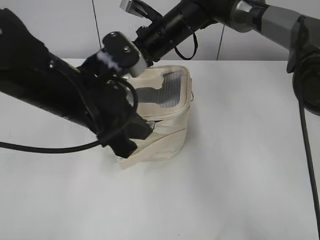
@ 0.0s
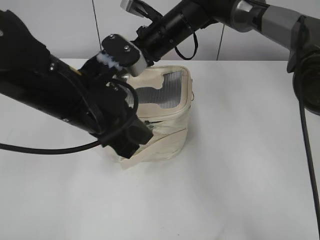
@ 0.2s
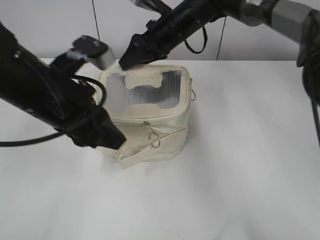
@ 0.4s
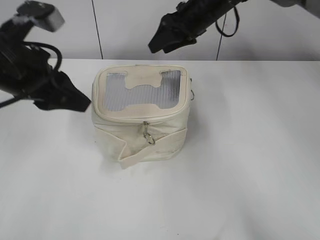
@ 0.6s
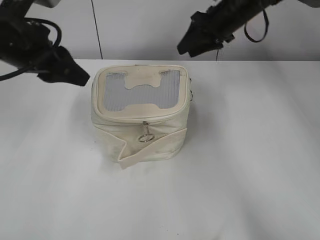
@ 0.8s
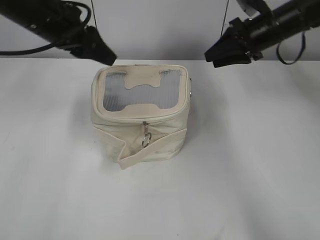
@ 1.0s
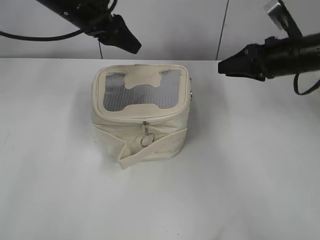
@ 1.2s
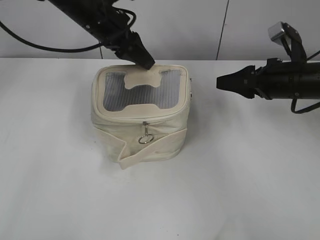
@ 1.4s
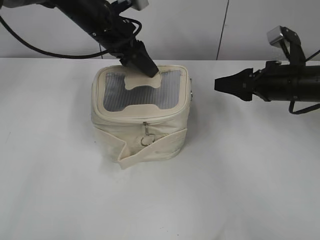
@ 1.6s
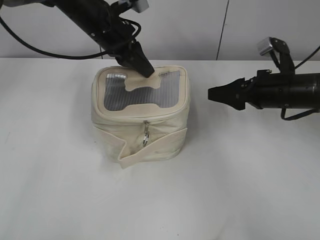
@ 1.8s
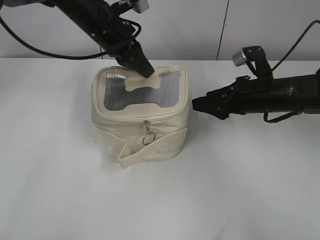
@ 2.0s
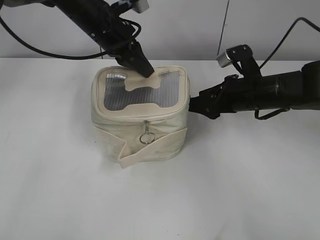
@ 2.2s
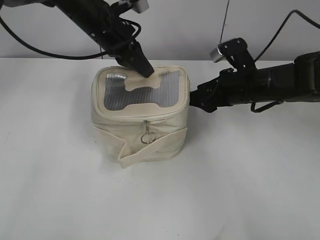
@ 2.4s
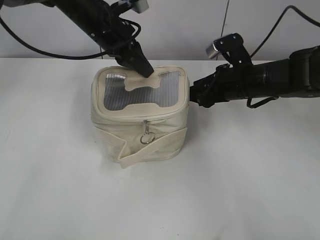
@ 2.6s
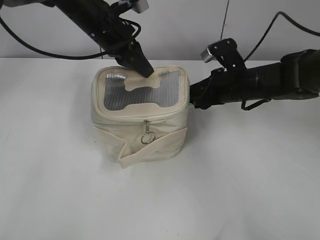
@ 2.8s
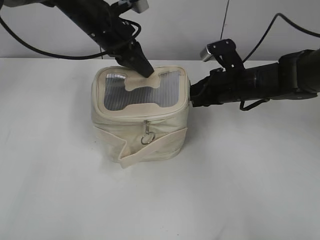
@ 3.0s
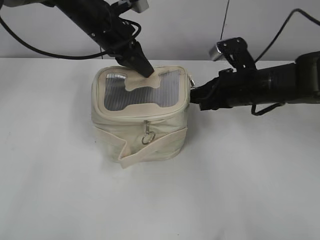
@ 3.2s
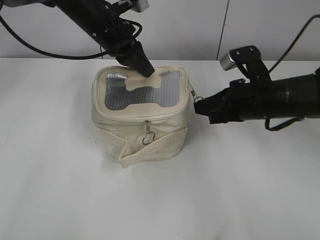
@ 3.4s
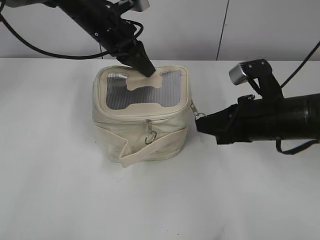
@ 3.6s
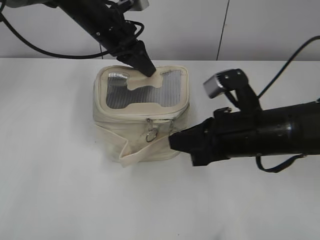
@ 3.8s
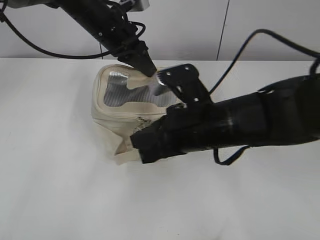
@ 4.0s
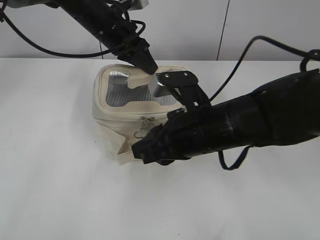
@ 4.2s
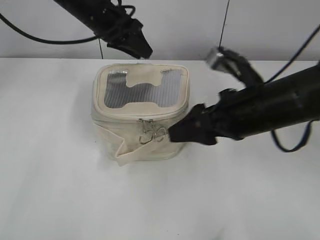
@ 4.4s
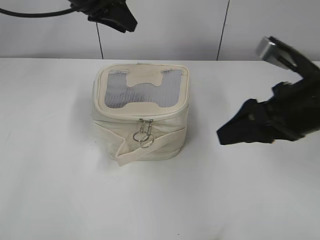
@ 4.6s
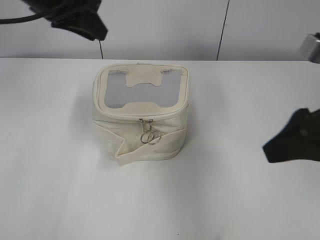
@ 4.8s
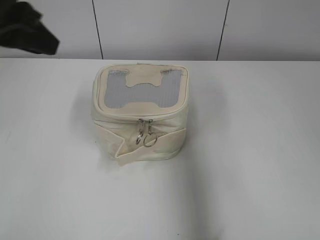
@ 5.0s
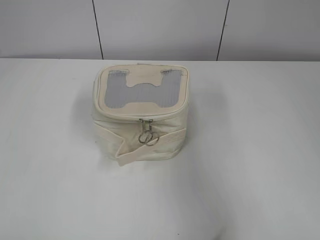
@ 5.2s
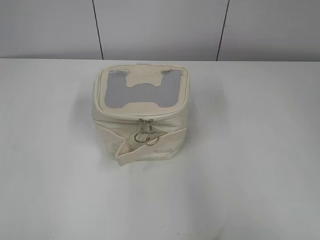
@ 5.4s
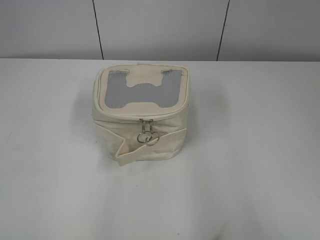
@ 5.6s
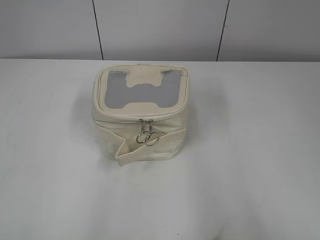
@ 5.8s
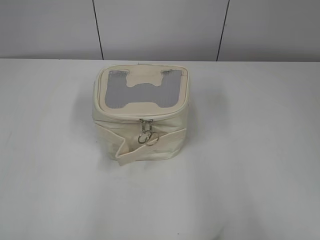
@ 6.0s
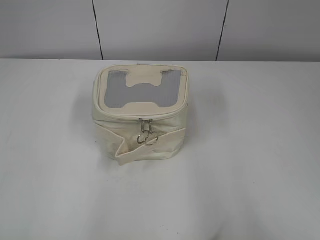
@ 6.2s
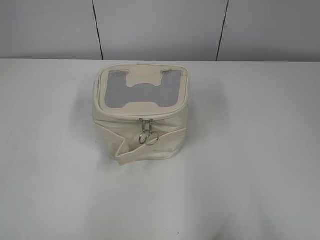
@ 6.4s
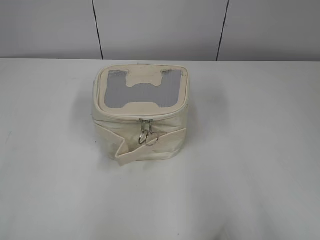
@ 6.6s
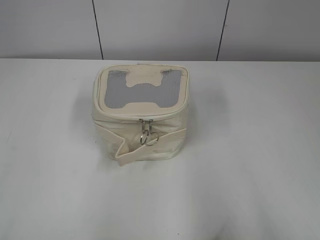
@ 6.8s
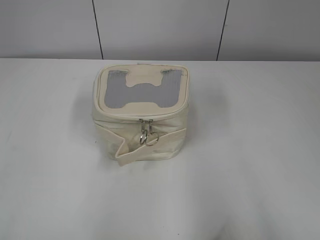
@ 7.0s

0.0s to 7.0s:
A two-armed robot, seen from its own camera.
Step, 0.6s to 4.2s: Zip up the bag with your right hand.
0.0s to 1.4s: The right gripper moves to the right and backward, approximately 25 cm, and opens its fingers; the left gripper goes roughly 20 cm forward, and opens its fingers.
1.4s to 2.8s: The left gripper closes its fingers; the right gripper shifts about 10 cm to the left.
2.8s to 4.2s: The right gripper is displaced backward and to the left by approximately 15 cm, and closes.
4.2s to 5.6s: The right gripper is displaced backward, to the right and upward by roughly 35 cm, and opens. Meanwhile the left gripper shifts roughly 50 cm backward and to the left, and opens up.

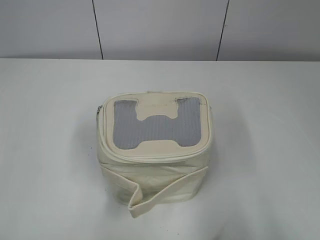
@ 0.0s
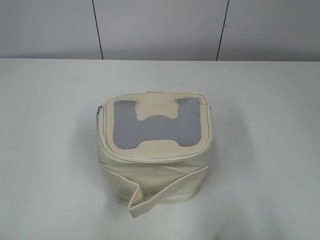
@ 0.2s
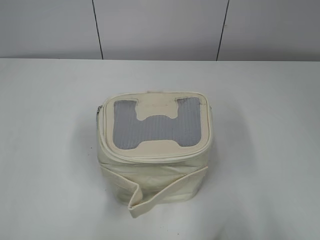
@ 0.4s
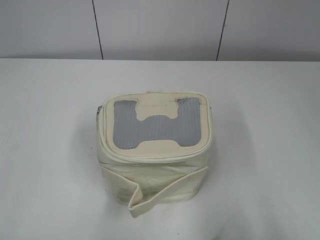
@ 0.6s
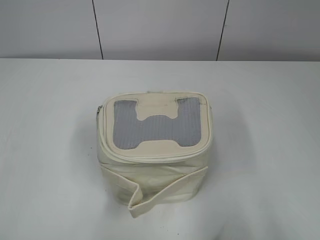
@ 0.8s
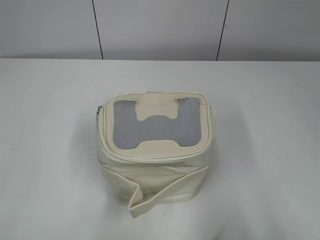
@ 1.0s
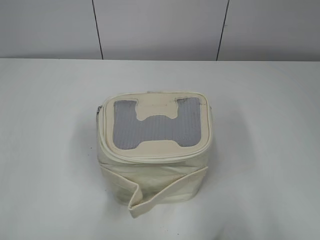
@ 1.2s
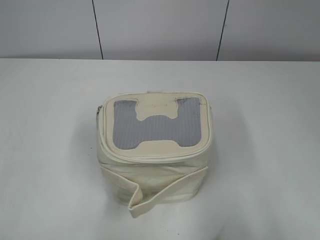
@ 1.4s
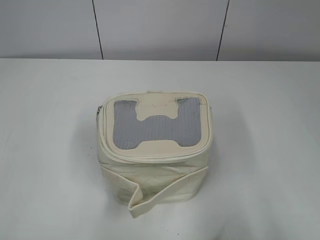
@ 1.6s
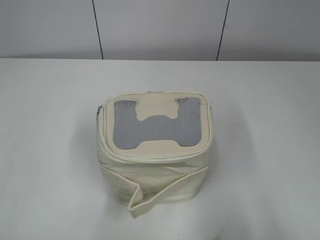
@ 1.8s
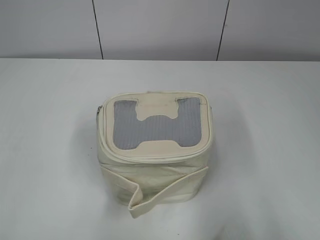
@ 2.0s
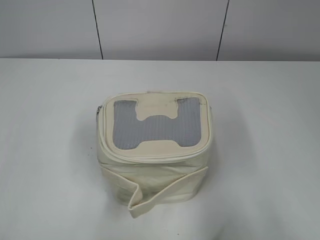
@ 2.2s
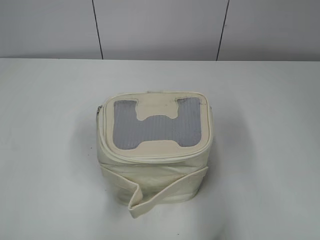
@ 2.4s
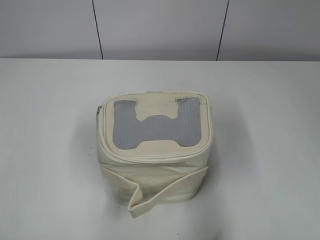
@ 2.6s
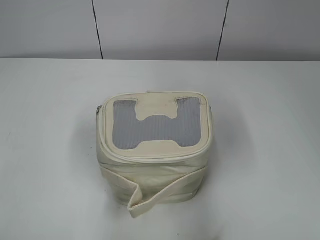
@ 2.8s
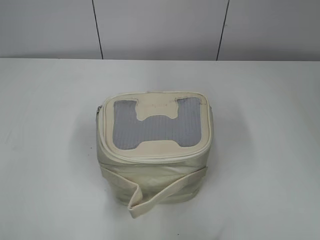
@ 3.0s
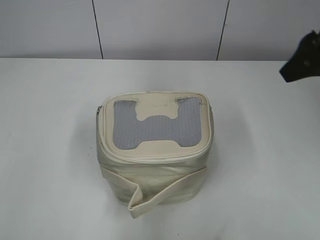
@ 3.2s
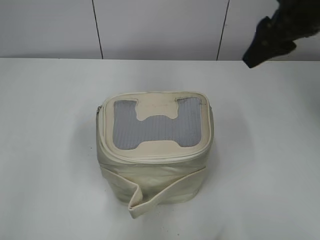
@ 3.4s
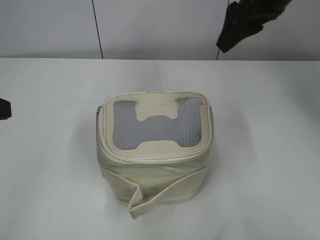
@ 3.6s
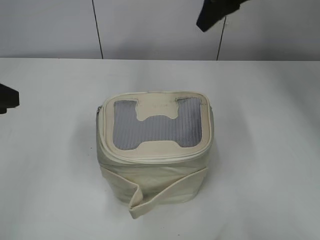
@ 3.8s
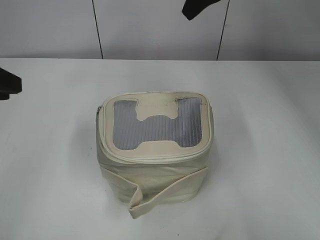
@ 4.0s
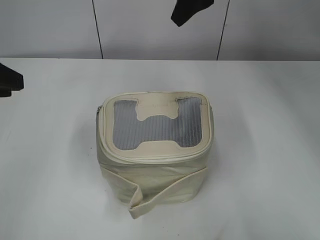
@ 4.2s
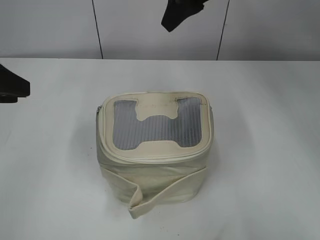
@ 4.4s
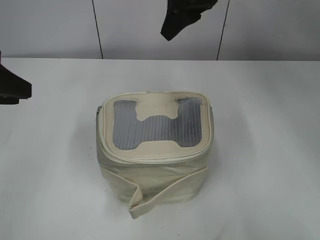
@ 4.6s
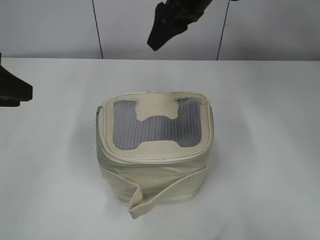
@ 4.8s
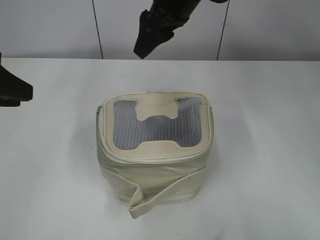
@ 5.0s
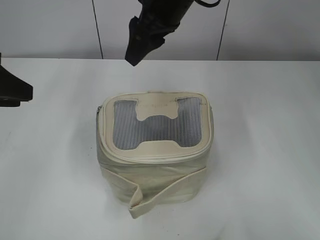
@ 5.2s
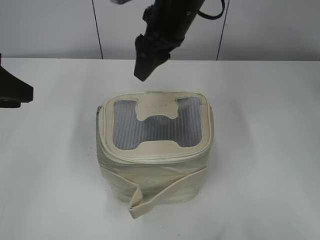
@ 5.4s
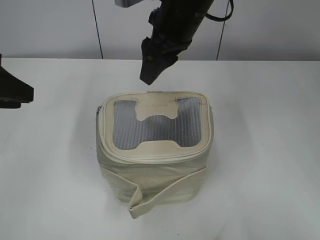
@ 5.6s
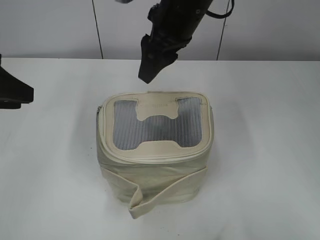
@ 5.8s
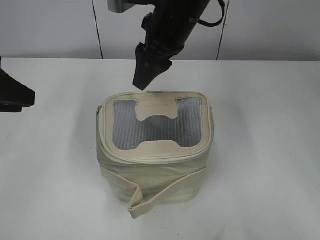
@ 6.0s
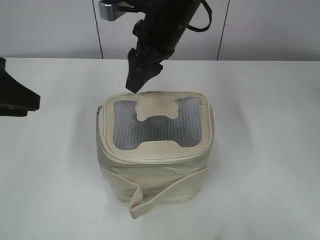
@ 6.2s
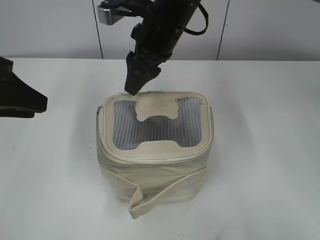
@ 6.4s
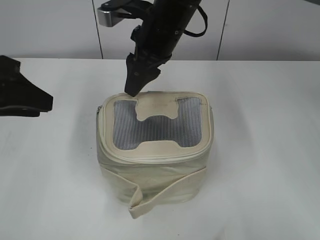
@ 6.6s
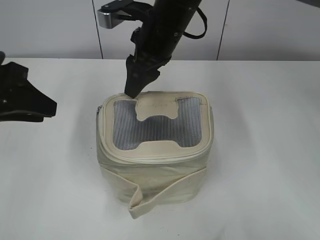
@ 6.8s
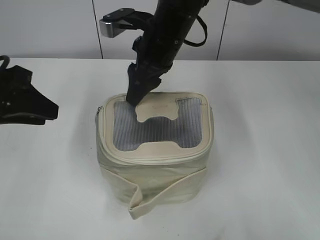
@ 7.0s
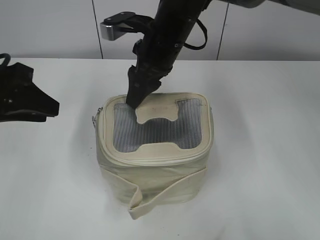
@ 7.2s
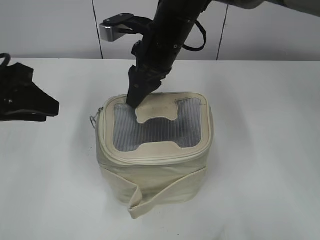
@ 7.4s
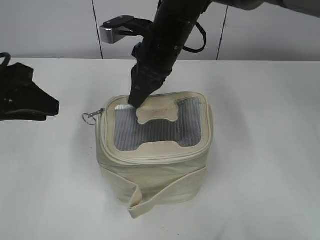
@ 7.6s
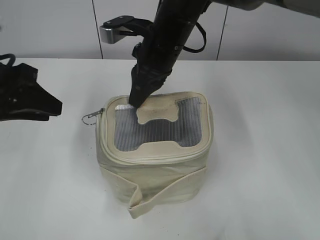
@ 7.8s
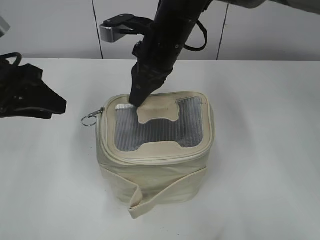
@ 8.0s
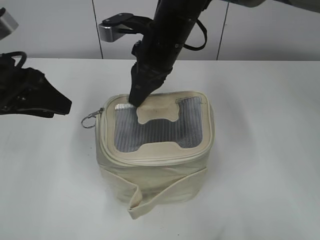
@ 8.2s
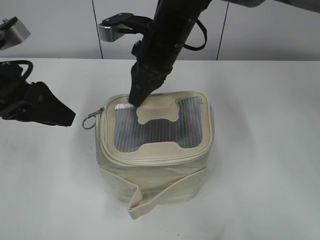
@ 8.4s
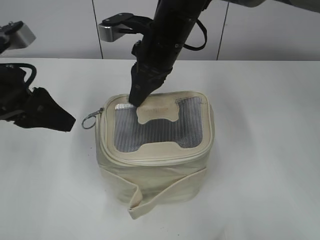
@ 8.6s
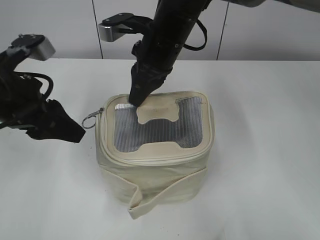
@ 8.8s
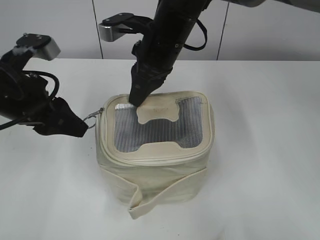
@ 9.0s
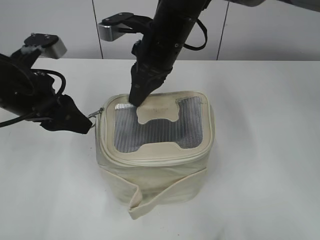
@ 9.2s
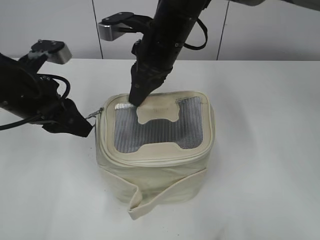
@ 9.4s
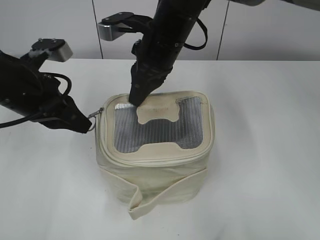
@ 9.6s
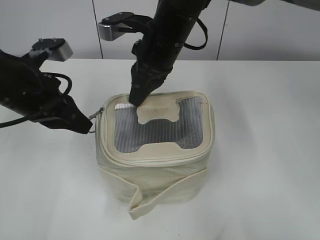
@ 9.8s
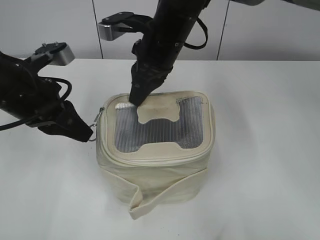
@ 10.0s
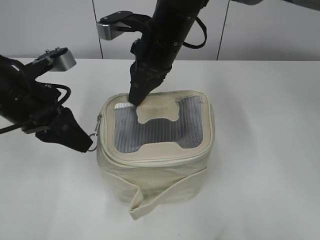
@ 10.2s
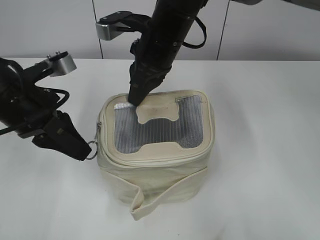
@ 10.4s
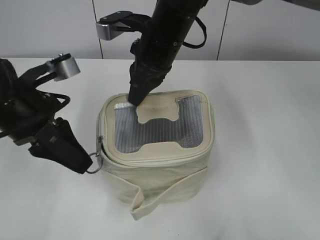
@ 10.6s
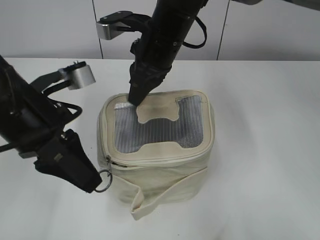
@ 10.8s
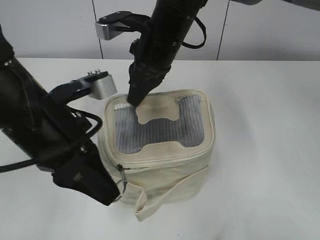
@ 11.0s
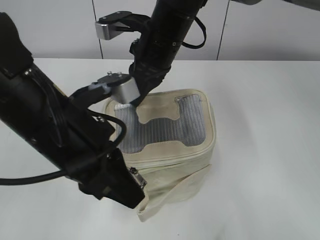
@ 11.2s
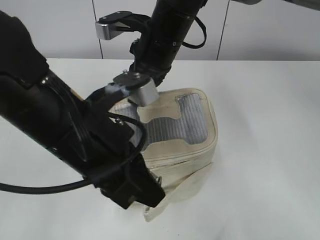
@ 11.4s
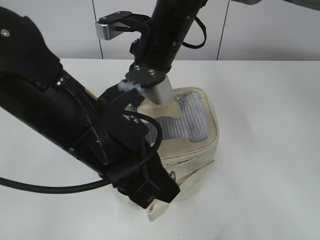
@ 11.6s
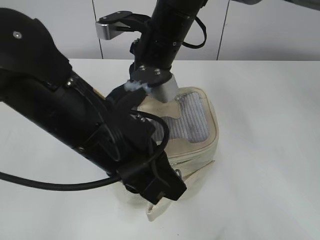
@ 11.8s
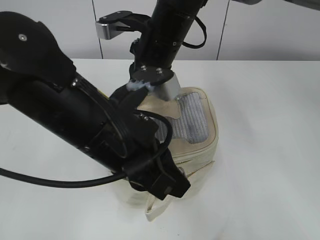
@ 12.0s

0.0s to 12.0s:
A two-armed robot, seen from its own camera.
1.6s to 3.0s: The left gripper is displaced forward by roughly 5 cm. Meanwhile the right gripper is displaced forward by about 20 cm.
3.0s to 4.4s: The right gripper travels forward and to the left by some 25 cm. The left gripper is displaced forward by about 15 cm.
4.4s to 6.0s: The right gripper goes some 10 cm downward and to the left.
6.0s to 7.6s: The right gripper changes place by about 5 cm, and closes its fingers.
7.6s to 9.0s: The left gripper ends up approximately 5 cm from where it was.
9.0s to 10.4s: The left gripper closes.
10.4s to 12.0s: The left gripper shifts about 15 cm to the right and backward.

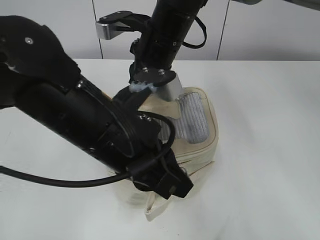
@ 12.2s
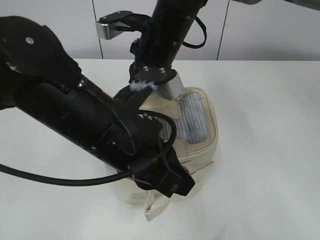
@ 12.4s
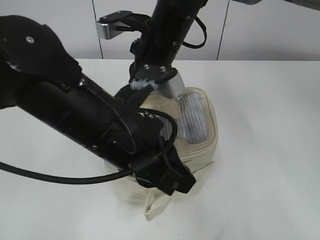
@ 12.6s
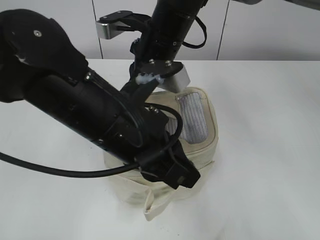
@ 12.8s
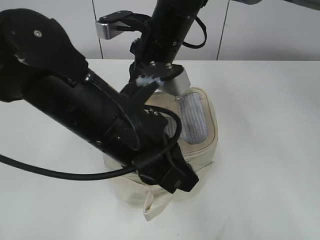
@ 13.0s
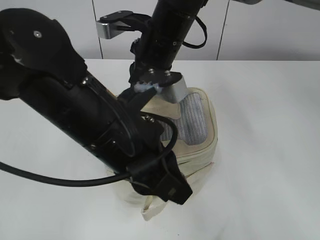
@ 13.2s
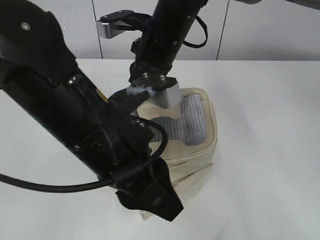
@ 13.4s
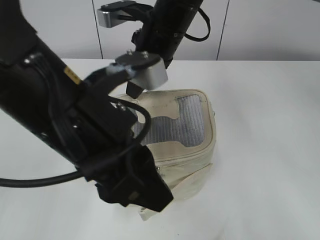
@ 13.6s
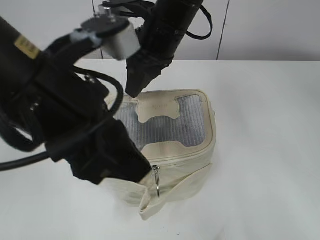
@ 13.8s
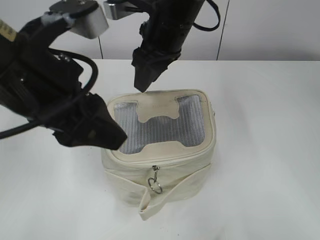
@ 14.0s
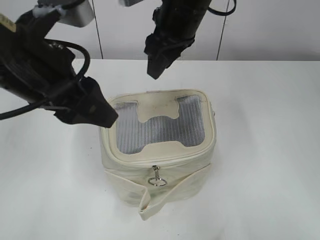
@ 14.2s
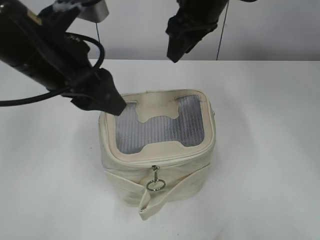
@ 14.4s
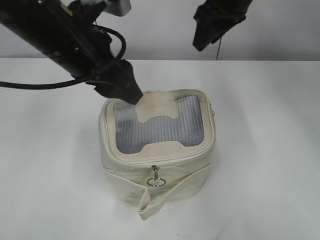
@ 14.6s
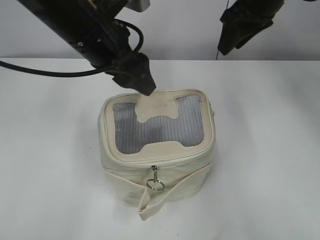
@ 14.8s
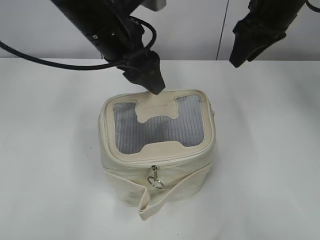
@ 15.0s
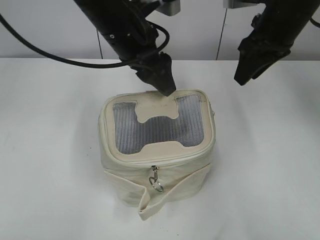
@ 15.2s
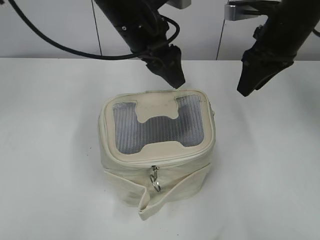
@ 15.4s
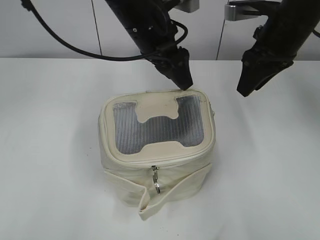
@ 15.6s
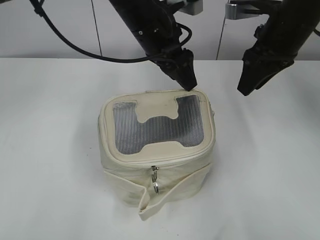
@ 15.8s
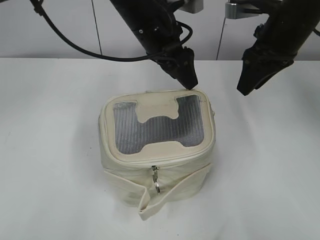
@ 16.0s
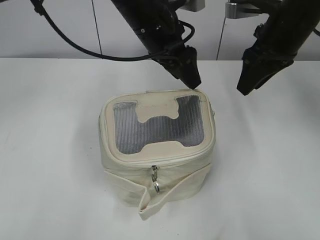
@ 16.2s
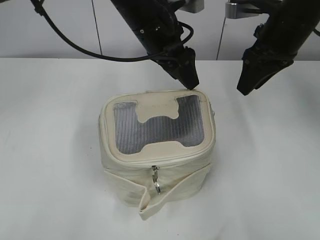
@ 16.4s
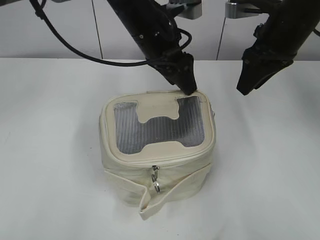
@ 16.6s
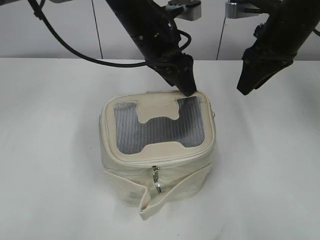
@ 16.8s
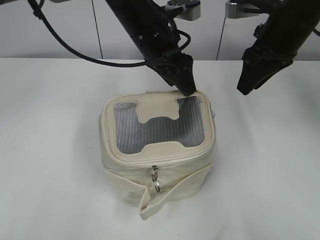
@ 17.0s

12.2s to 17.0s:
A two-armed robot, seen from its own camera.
Step, 13.8s to 14.0s: Hold the bag with your right hand.
12.2s to 13.8s: The right gripper opens up. The left gripper moves upward, about 5 cm, and opens.
13.8s to 15.4s: The left gripper is displaced forward by roughly 20 cm. Meanwhile the right gripper travels to the right by about 20 cm.
15.4s to 17.0s: The grippers make only small movements.
